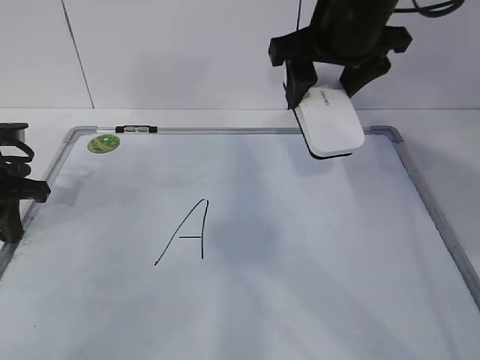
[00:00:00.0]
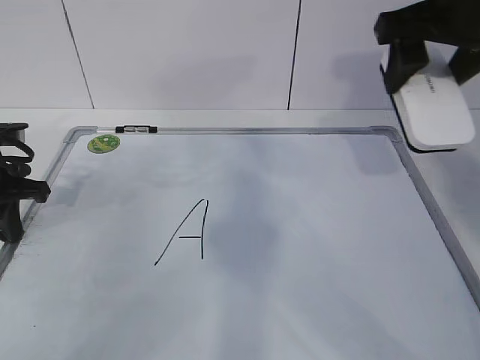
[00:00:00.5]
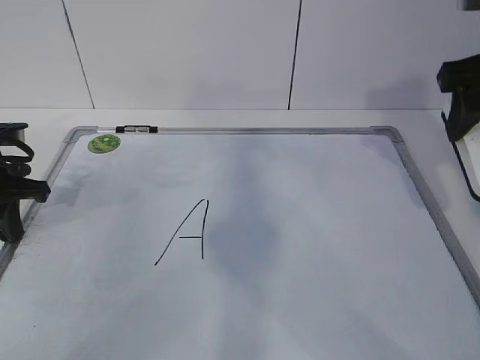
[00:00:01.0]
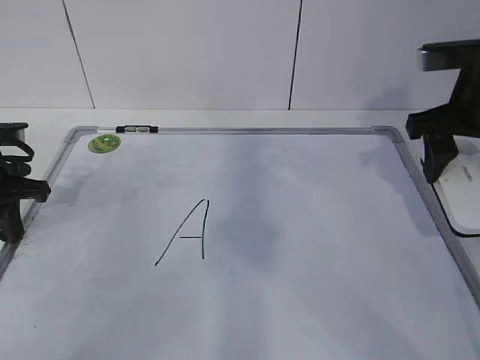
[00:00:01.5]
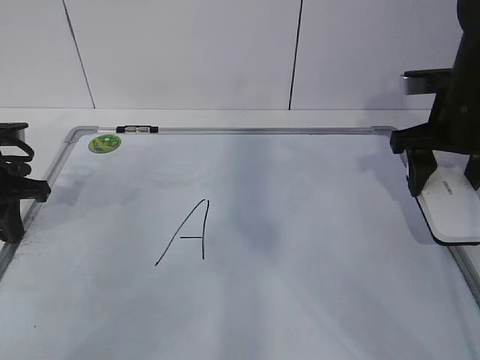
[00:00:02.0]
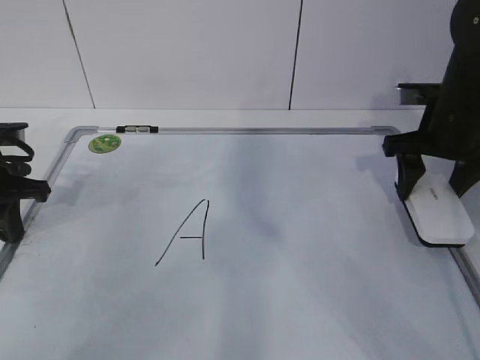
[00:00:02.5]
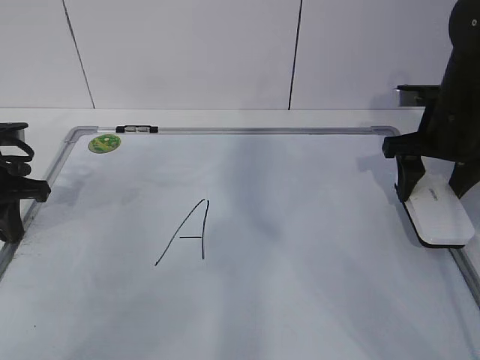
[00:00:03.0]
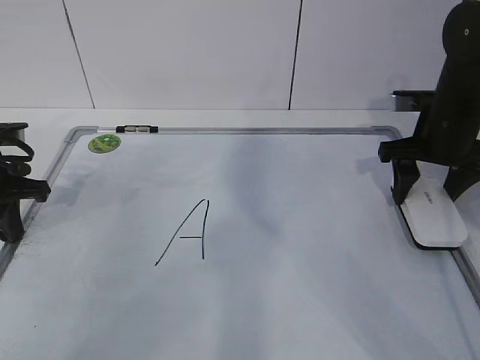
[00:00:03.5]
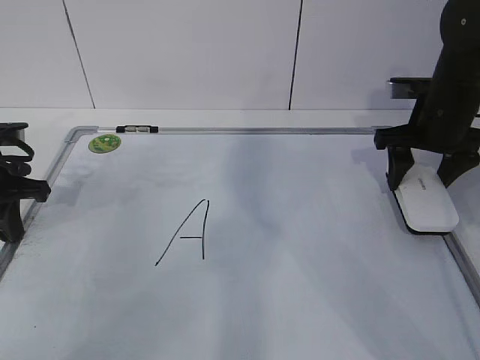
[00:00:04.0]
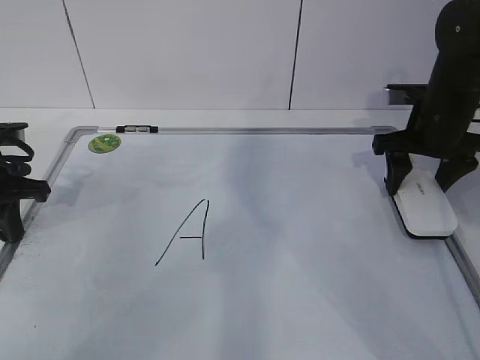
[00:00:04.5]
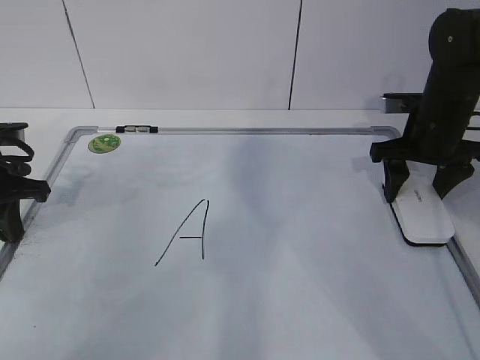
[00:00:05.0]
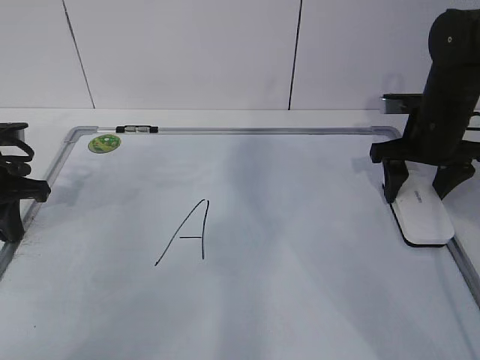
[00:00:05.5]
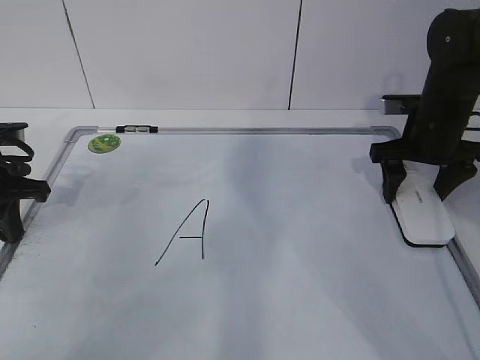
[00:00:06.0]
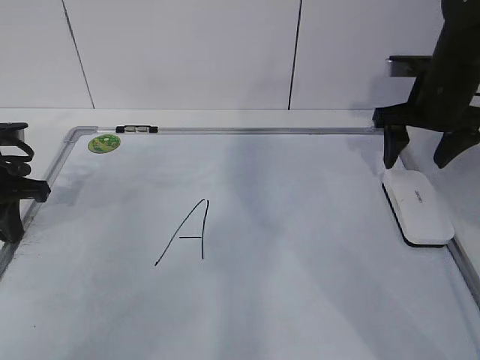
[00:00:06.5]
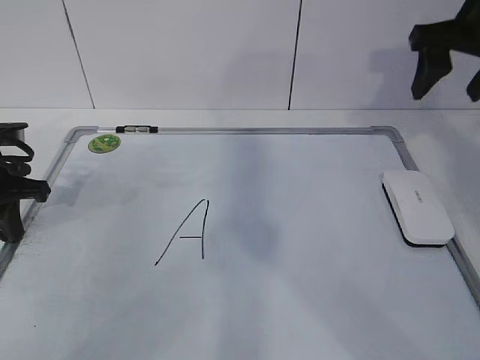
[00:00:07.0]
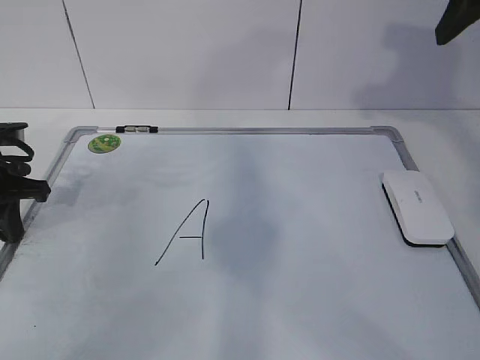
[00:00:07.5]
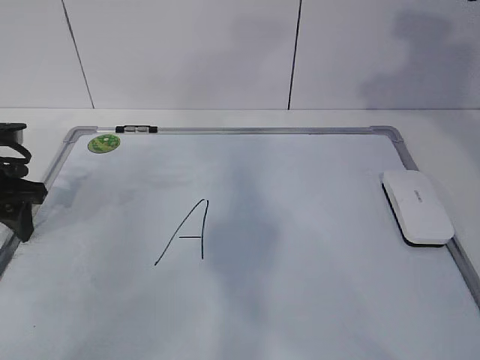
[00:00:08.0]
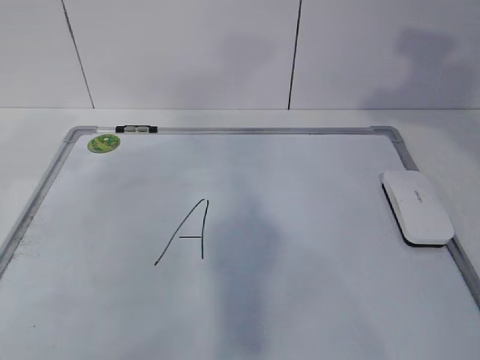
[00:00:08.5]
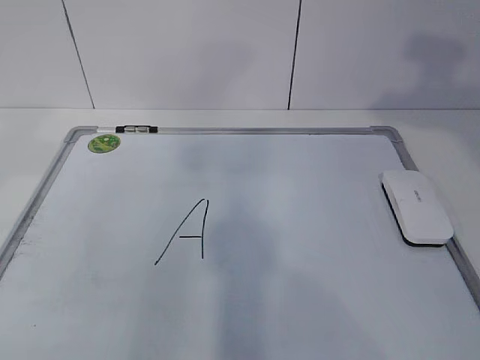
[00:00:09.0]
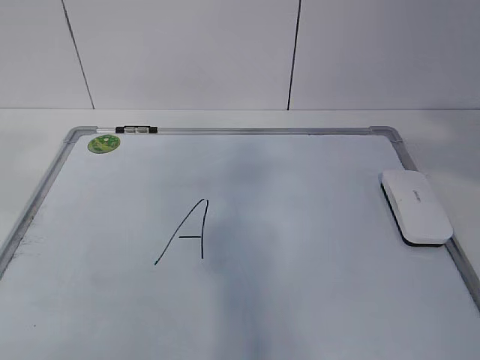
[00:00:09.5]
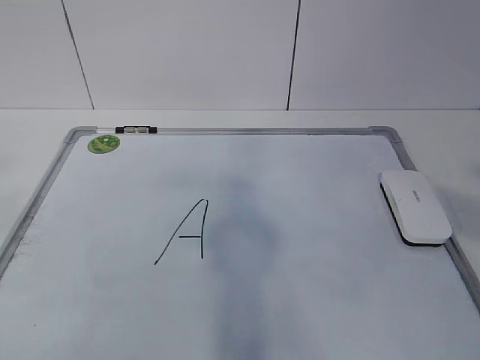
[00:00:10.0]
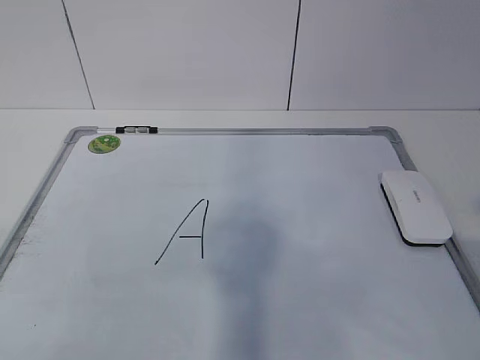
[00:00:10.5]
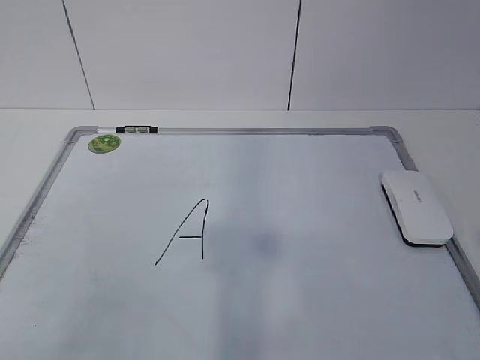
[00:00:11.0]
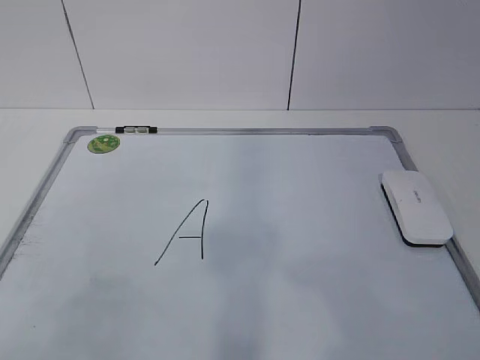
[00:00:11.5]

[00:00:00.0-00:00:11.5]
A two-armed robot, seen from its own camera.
Task of the whole recording: pick up the eraser on the blackboard and erase the letter "a".
00:00:00.0 to 00:00:02.0: The right gripper is displaced to the right and downward by some 15 cm.
00:00:02.0 to 00:00:04.0: The right gripper ends up some 5 cm from where it was.
00:00:04.0 to 00:00:06.0: There are only small adjustments of the grippers.
00:00:06.0 to 00:00:07.5: The right gripper moves upward, approximately 20 cm.
00:00:07.5 to 00:00:09.5: The right gripper travels backward by approximately 25 cm; the left gripper is displaced upward and backward by approximately 35 cm, and opens up.
